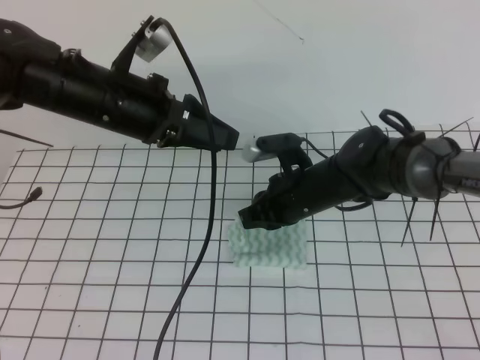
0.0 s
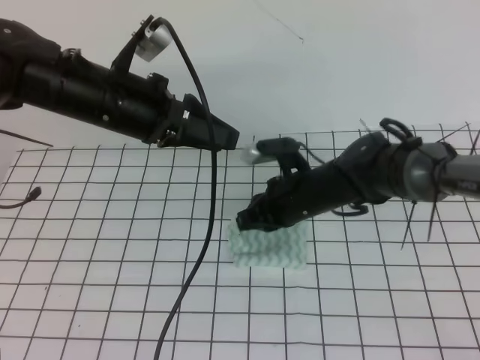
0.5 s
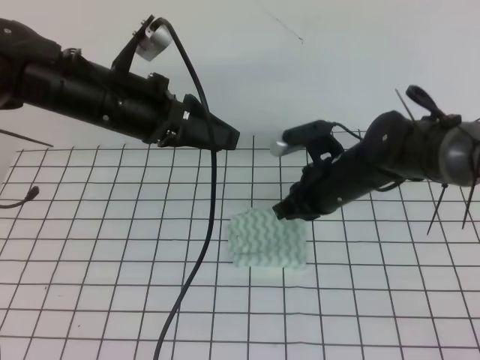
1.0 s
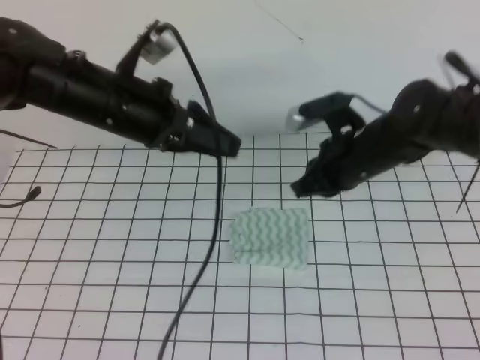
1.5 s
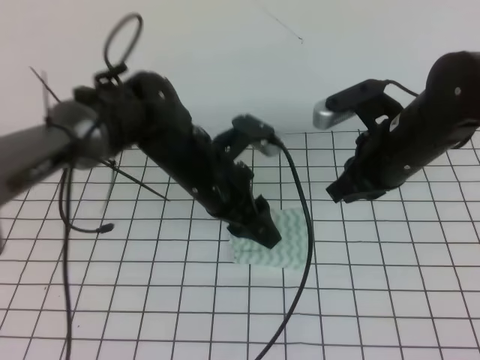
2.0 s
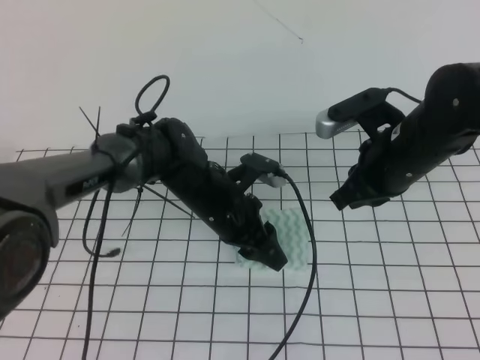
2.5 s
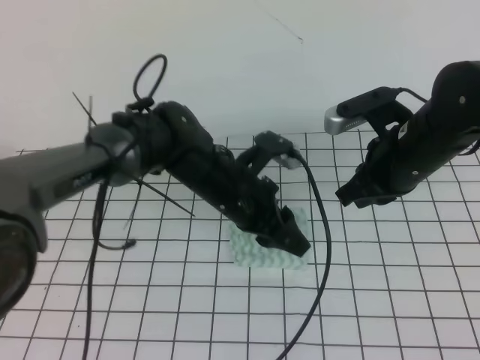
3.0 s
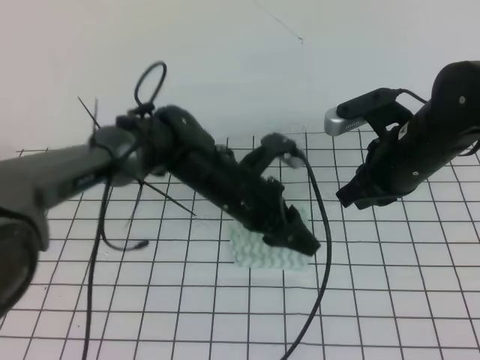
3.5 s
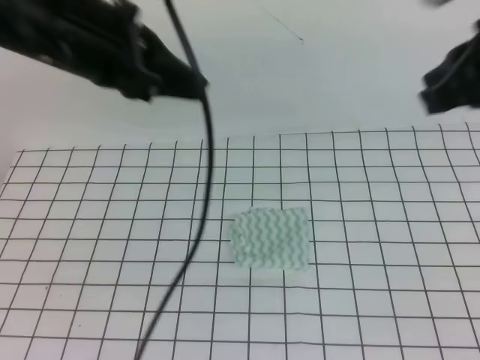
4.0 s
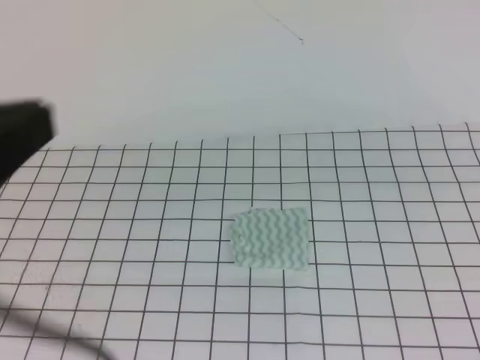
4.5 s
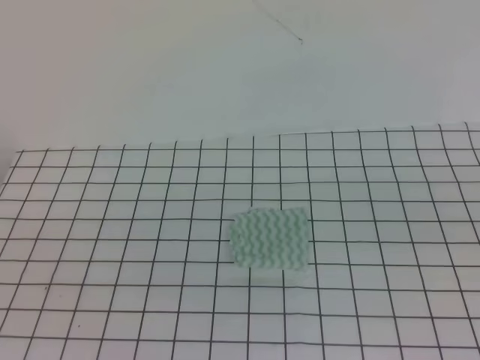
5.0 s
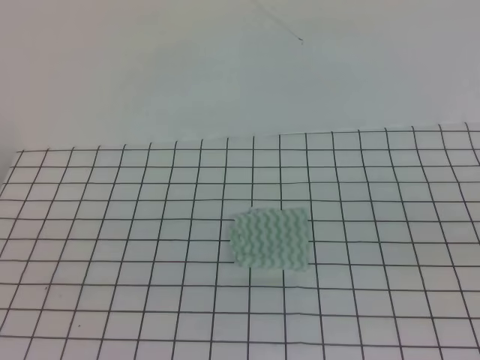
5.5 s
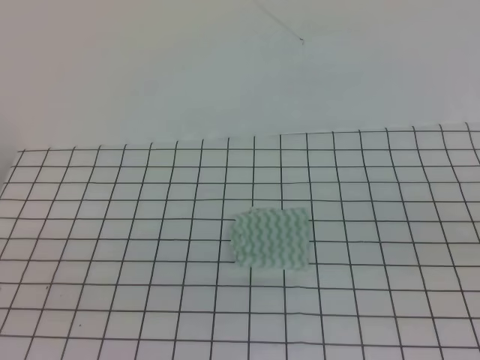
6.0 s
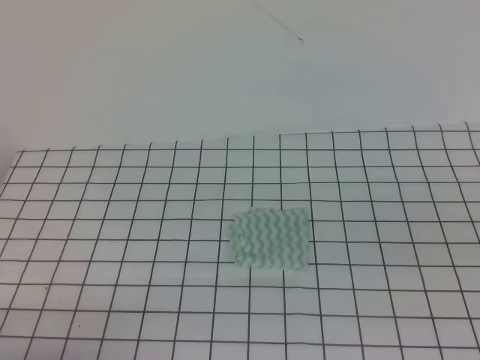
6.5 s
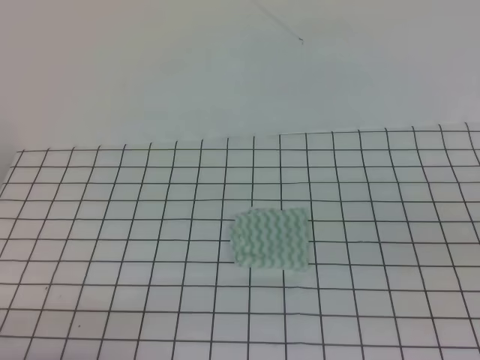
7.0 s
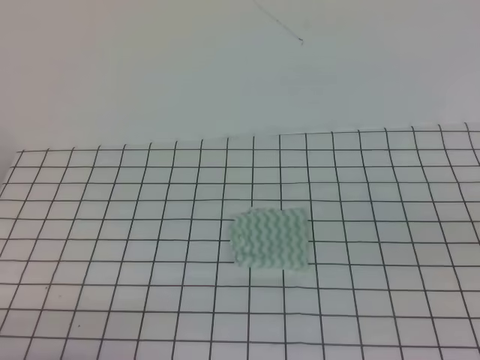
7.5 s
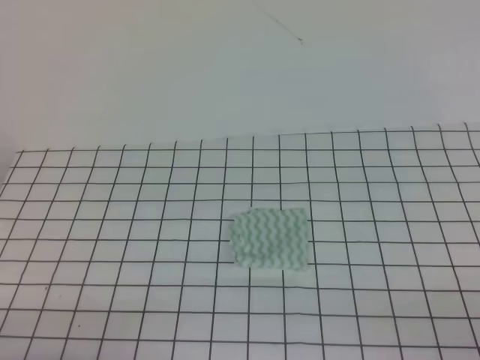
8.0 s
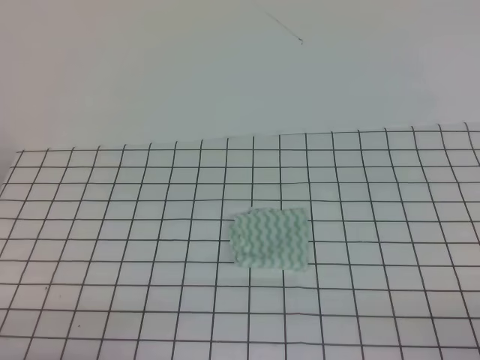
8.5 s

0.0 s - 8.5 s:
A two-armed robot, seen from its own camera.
Step, 0.0 s - 8.5 s: Fold the towel.
0.0 s - 2.0 s: The right gripper is displaced upward and to the right by some 15 cm, while the left gripper travels downward and to the right by about 10 cm.
2.0 s - 4.0 s: The left gripper goes about 20 cm upward and to the left, and closes its fingers; the right gripper goes roughly 15 cm upward and backward.
4.0 s - 6.5 s: The left gripper shifts roughly 35 cm backward, downward and to the left; the right gripper moves backward, downward and to the right, about 20 cm.
